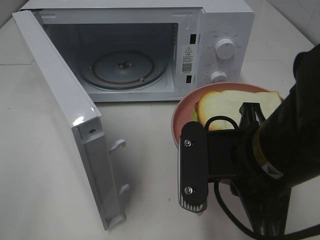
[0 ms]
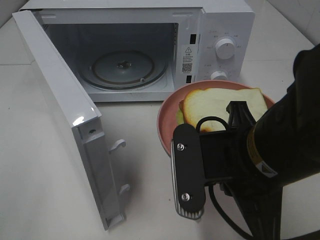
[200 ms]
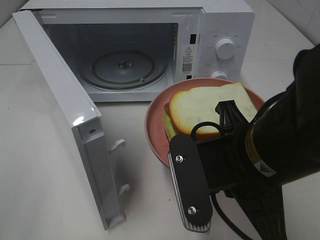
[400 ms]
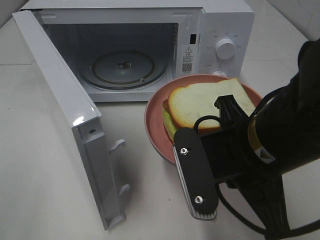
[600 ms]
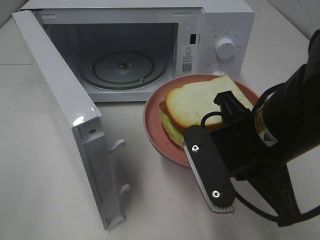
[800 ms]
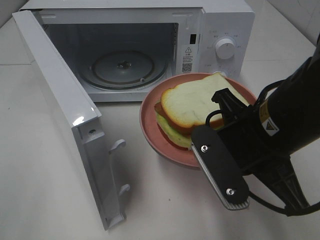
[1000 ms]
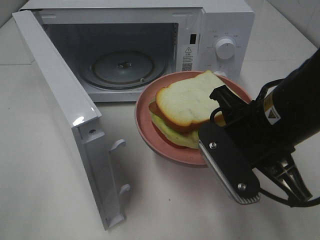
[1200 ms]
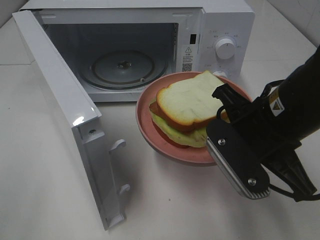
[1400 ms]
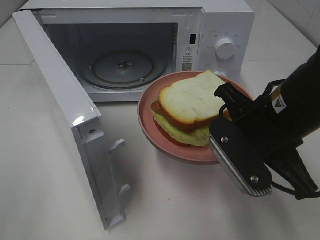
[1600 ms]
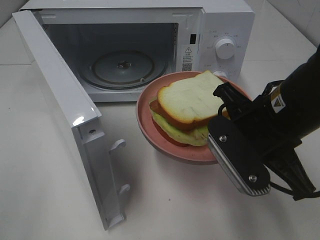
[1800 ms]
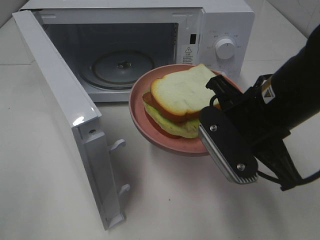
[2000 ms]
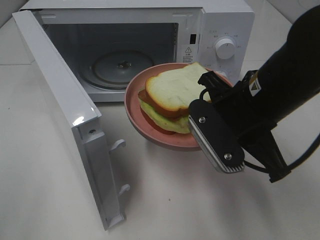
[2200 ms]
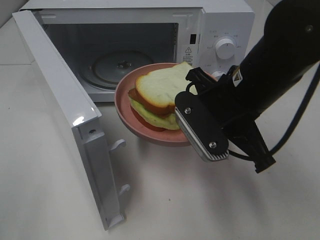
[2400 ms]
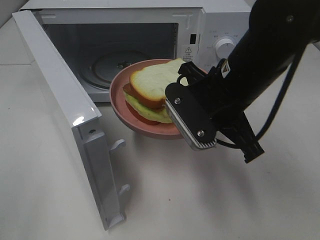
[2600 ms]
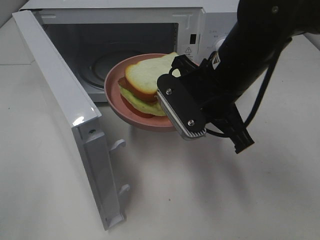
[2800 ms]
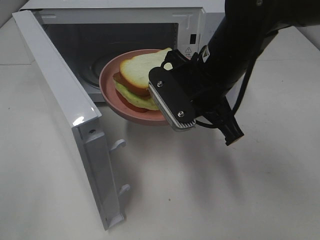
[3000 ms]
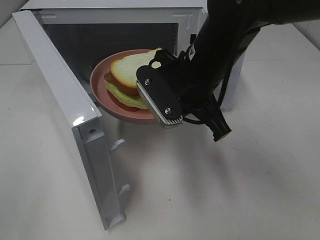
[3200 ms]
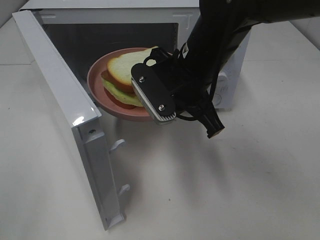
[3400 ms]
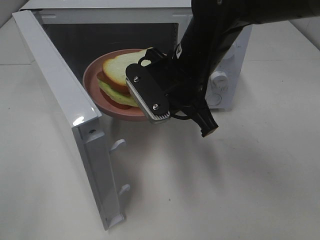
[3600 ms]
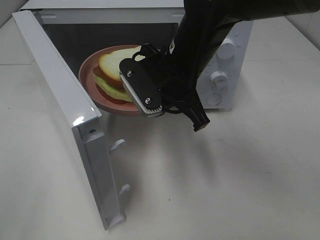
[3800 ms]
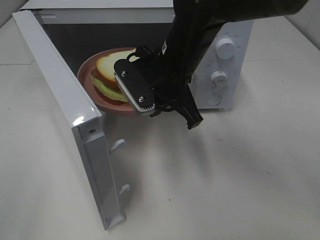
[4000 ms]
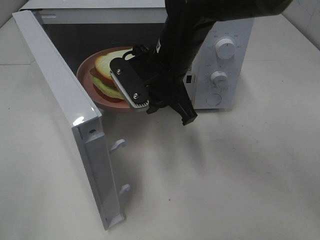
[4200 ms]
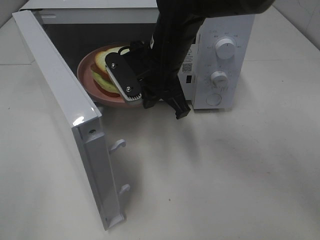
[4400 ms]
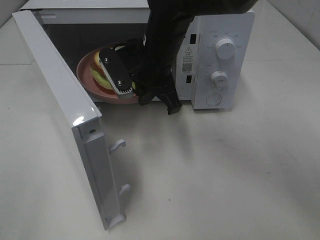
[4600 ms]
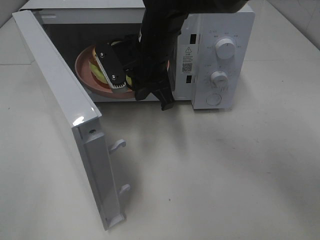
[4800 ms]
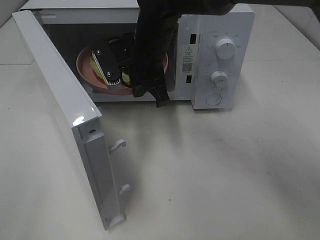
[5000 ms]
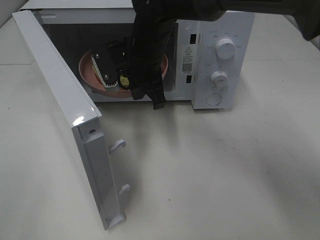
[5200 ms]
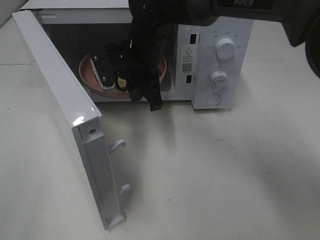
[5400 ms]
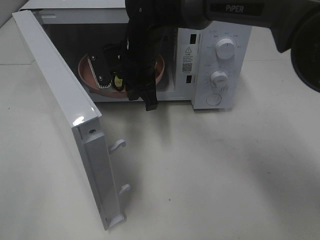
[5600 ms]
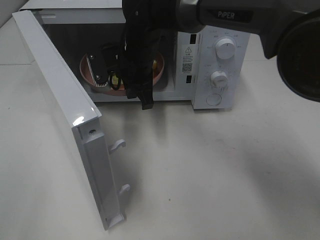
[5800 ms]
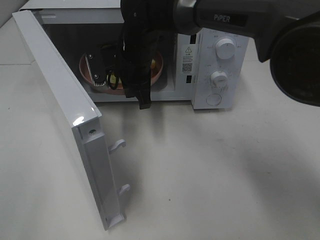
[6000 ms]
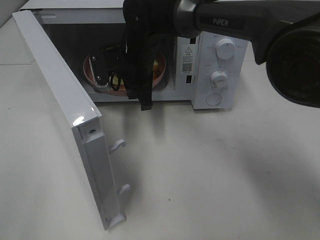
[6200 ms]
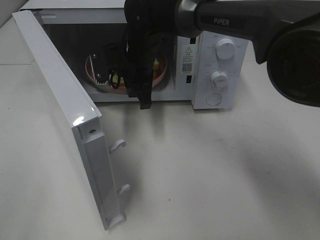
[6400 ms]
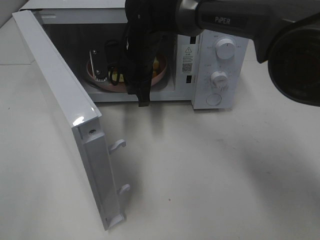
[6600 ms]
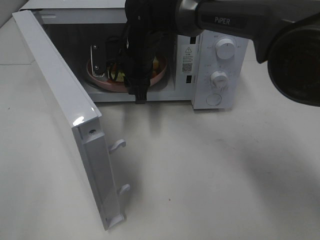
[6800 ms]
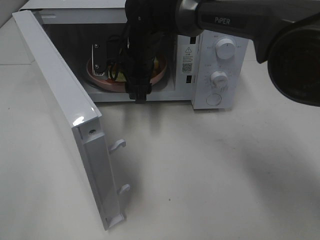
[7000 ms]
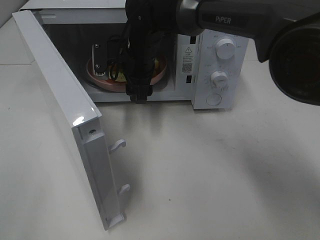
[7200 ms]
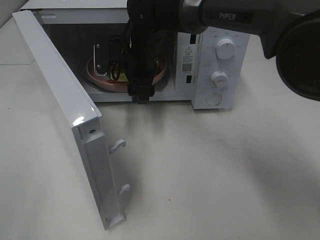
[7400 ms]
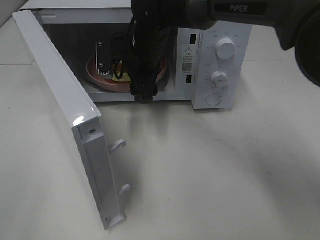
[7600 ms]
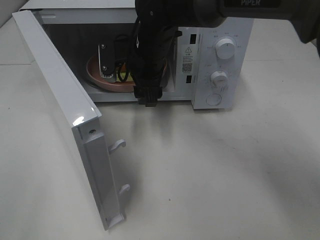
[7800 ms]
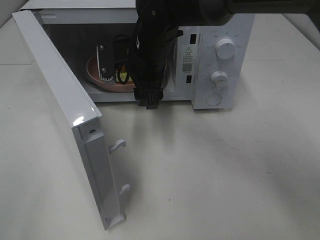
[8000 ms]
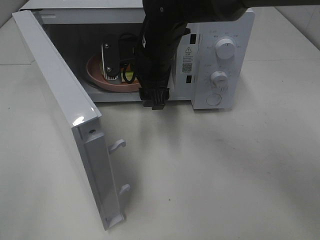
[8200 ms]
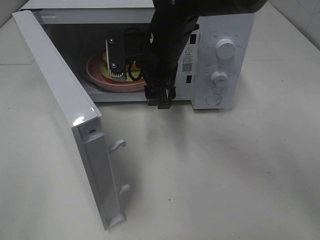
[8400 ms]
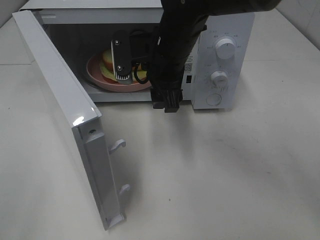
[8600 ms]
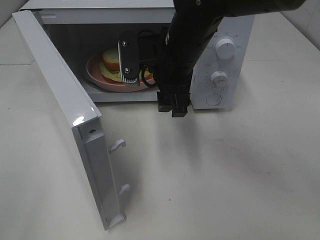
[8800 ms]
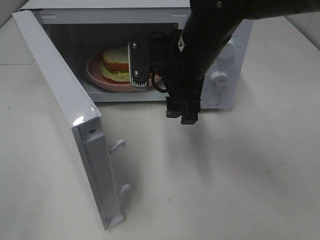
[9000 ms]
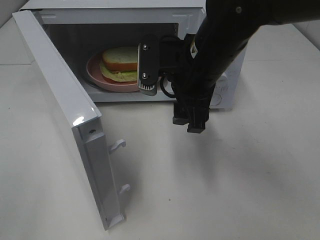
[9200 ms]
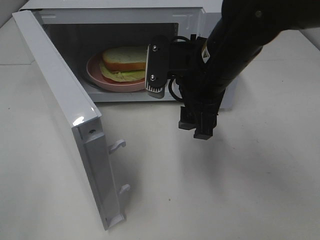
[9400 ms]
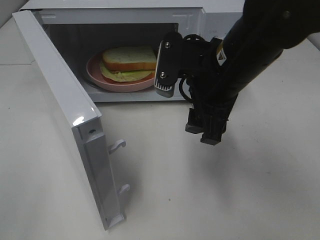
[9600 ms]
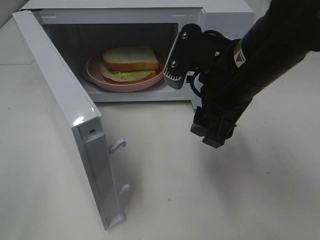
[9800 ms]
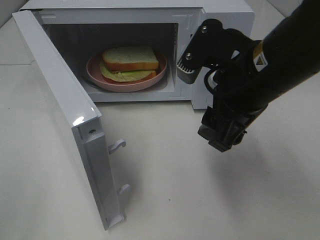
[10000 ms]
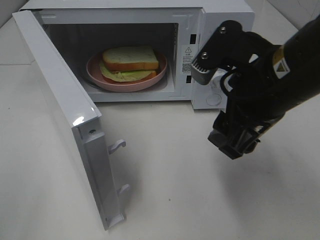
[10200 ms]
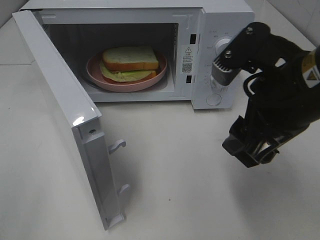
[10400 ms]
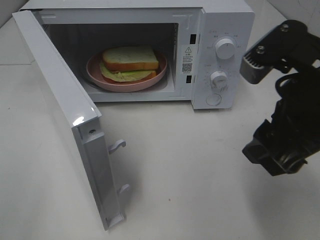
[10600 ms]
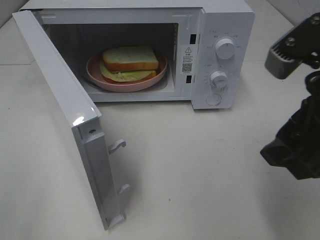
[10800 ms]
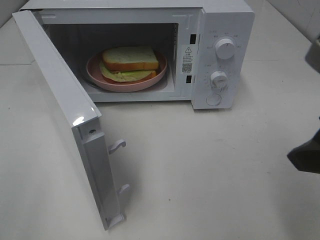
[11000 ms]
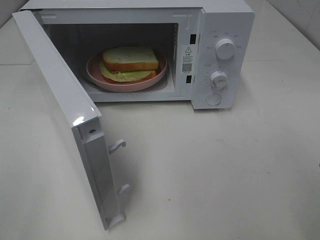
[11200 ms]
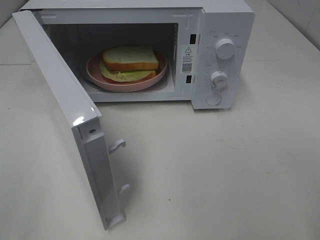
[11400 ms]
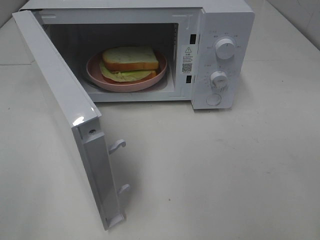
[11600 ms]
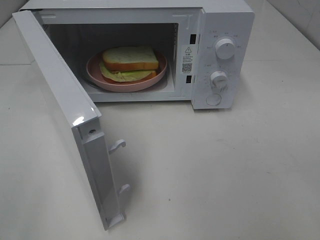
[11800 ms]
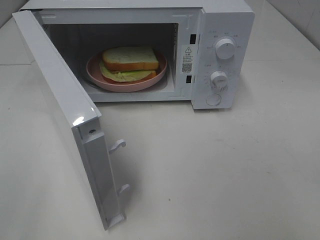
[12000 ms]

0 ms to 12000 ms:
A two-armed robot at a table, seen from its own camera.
Task of the whole recording: Heat Sandwich.
Step, 0 ms to 7800 ms: Right hand: place the plate in the microwave.
0 ms to 1600 ms: The right gripper heads forward, covering some 5 cm.
1600 ms to 3000 ms: The right gripper moves forward and to the left, roughly 10 cm.
3000 ms to 4400 ms: The right gripper shifts approximately 10 cm forward and to the left.
4400 ms to 6000 ms: The right gripper is displaced forward by about 5 cm.
6000 ms to 7600 ms: The right gripper opens.
7600 ms to 9000 ms: The right gripper moves backward and to the right, about 10 cm.
9000 ms to 10400 ms: The right gripper moves backward and to the right, approximately 15 cm.
10400 ms to 12000 ms: The right gripper shifts approximately 20 cm to the right and backward.

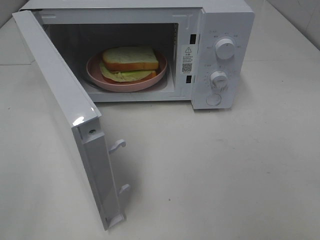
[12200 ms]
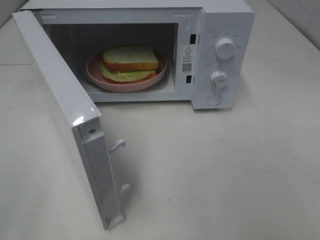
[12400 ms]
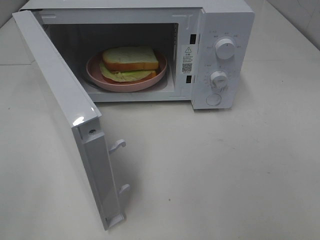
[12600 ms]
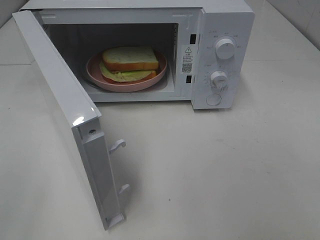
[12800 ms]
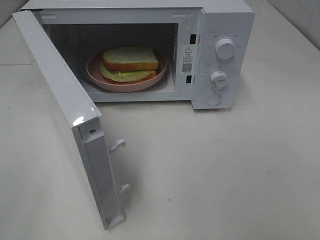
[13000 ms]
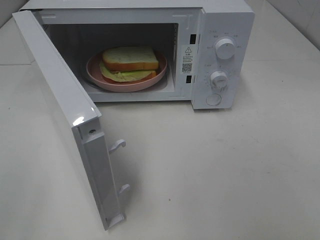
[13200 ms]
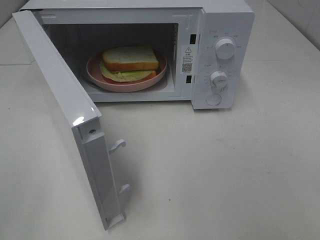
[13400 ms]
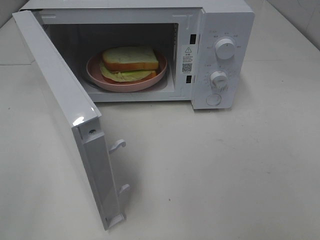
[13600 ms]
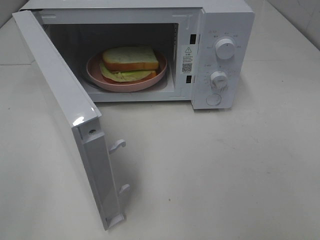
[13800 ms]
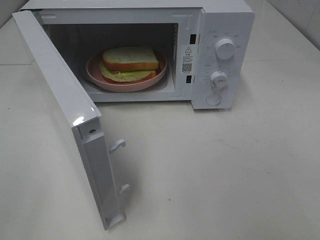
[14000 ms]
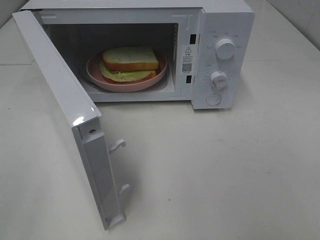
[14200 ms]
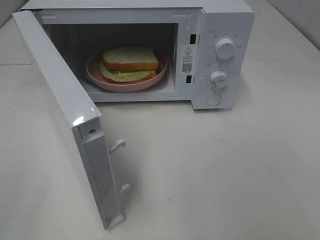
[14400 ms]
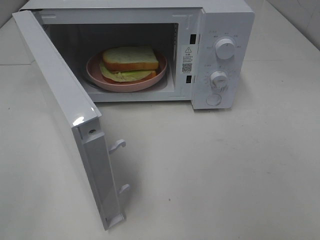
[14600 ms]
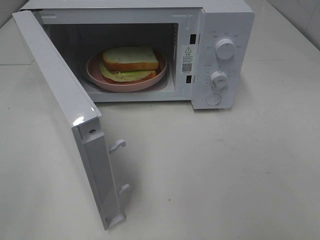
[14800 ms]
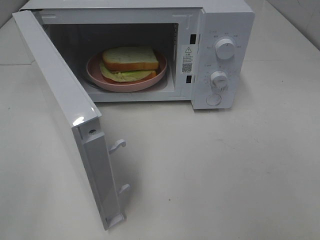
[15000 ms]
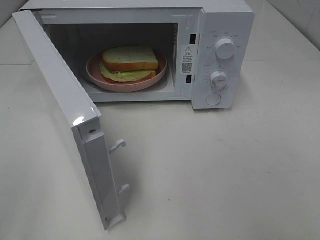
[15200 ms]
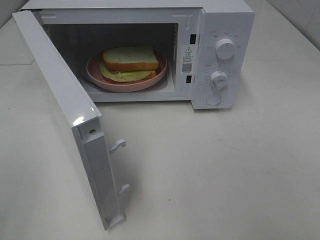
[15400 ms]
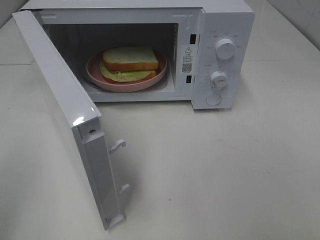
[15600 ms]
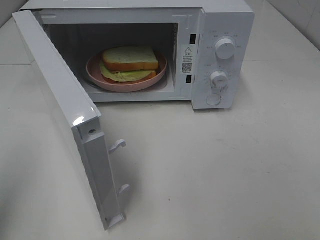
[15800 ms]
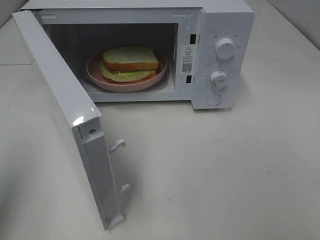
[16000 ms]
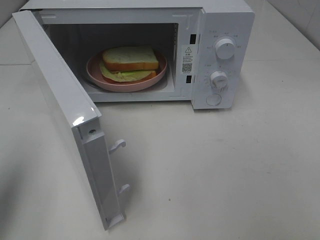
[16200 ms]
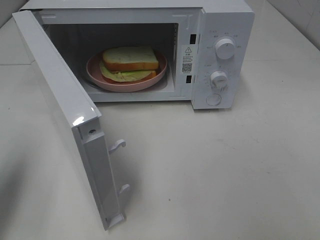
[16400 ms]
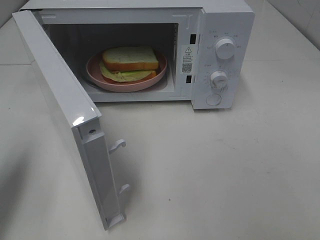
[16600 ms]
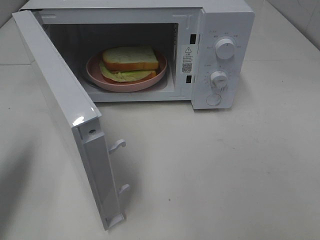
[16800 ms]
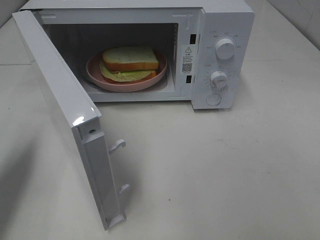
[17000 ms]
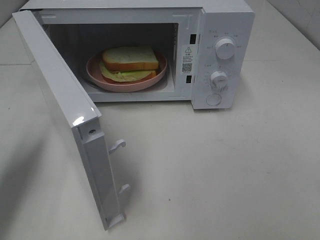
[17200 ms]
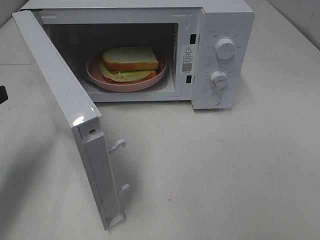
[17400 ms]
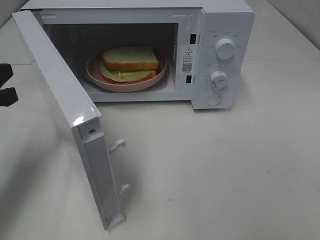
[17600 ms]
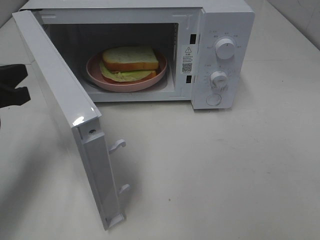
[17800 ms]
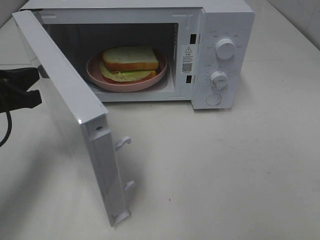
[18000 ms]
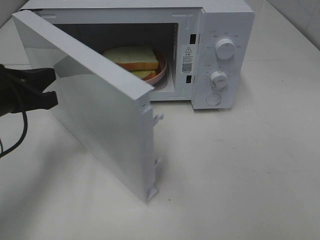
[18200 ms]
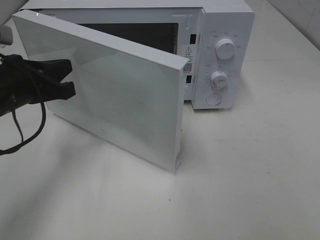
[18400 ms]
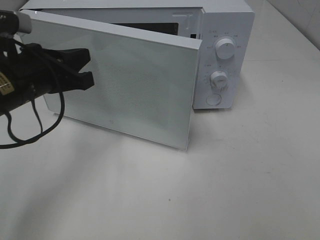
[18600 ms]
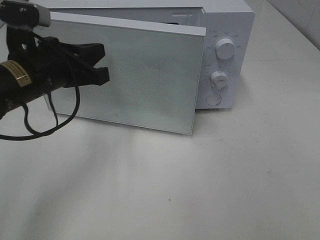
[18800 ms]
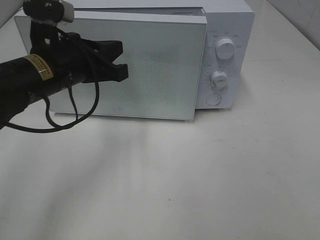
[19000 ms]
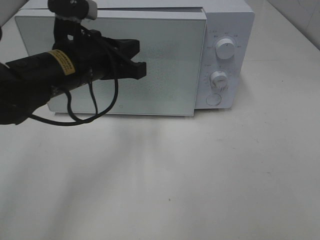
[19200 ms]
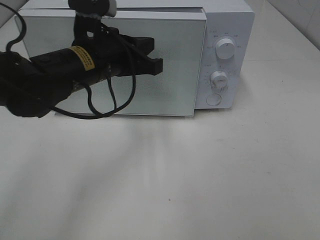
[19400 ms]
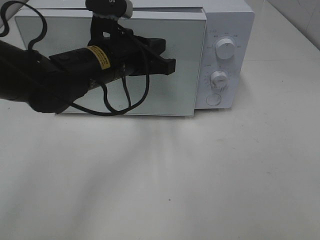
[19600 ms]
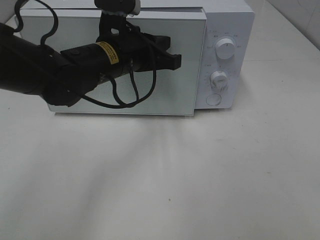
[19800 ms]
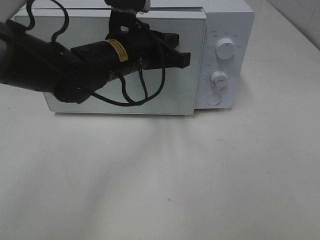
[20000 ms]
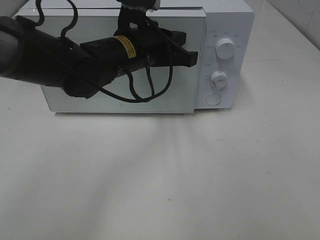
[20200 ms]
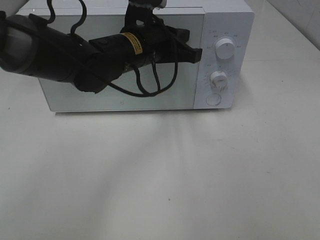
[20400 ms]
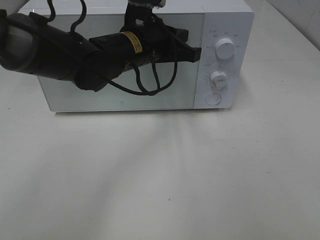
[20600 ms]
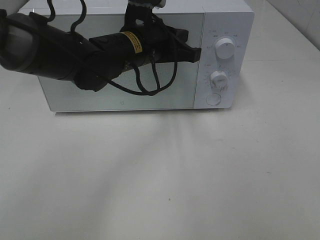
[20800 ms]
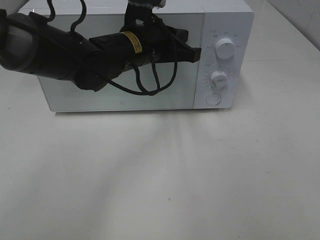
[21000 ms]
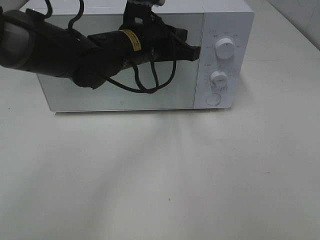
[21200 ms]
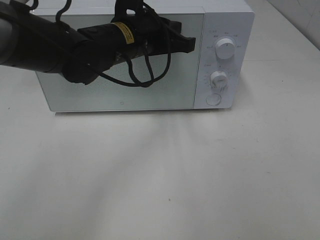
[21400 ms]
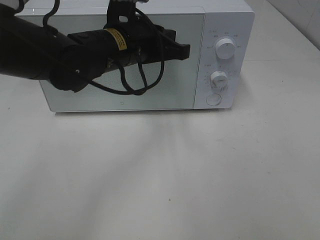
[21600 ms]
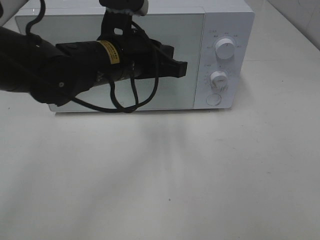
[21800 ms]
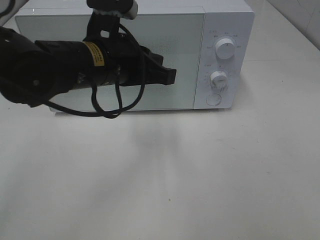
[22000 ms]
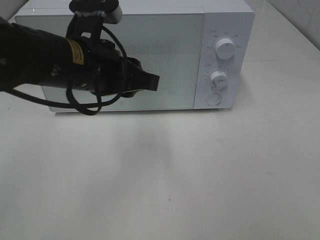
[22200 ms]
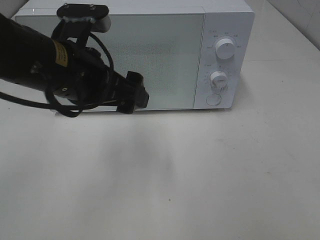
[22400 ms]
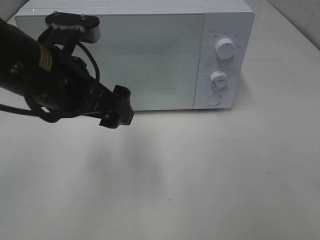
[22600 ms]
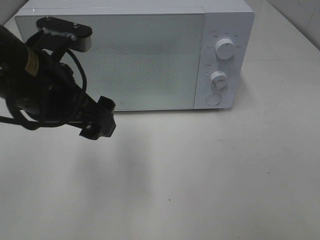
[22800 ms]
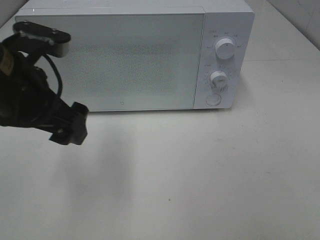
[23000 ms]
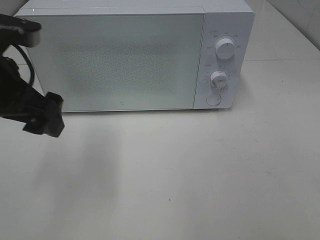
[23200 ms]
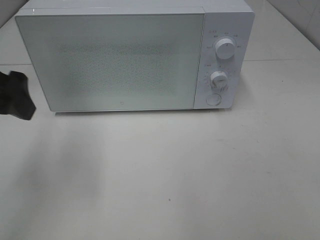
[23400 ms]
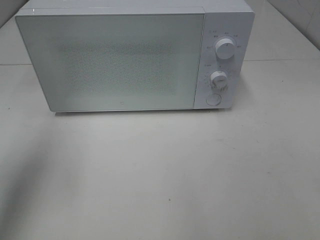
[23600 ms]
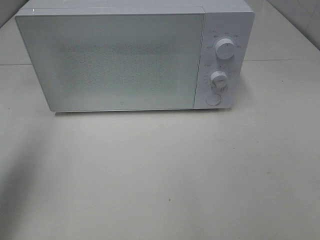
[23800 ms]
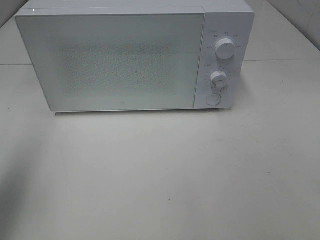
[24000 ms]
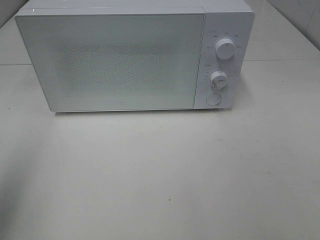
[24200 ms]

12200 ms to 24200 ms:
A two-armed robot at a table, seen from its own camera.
Task of the whole recording: Heat Sandwich.
Step, 12200 ms to 21000 ms: Left hand: close the microwave door.
15200 ms to 16600 ms: The left gripper goes about 15 cm forward, and closes up.
16600 ms to 18200 ms: The left gripper travels forward, to the right and downward by approximately 15 cm.
18200 ms to 19800 ms: The left gripper goes roughly 20 cm to the right and forward.
19800 ms to 21200 ms: The grippers make only small movements.
21200 ms to 22600 ms: The left gripper heads backward and to the left, covering approximately 15 cm, and opens.
22600 ms to 24200 ms: The left gripper moves to the left and backward, about 20 cm.
